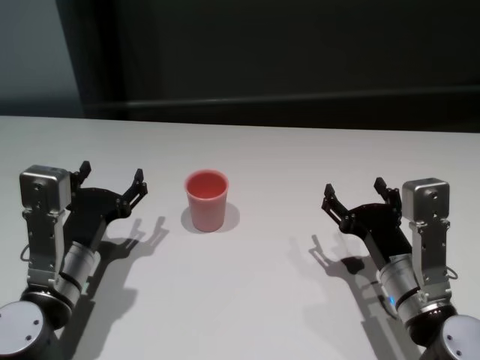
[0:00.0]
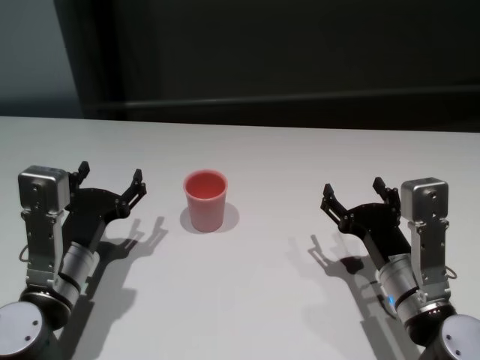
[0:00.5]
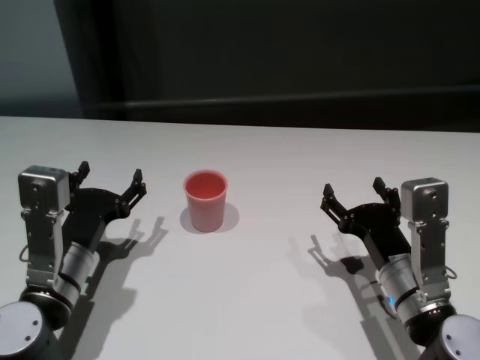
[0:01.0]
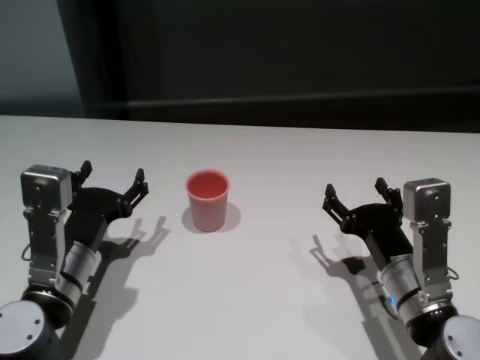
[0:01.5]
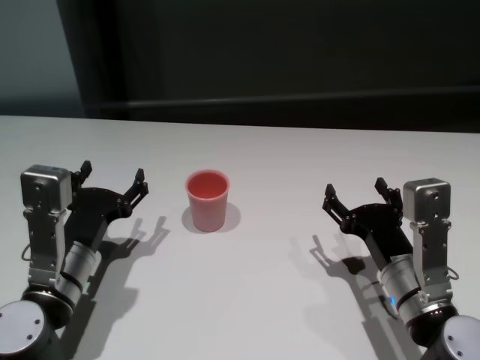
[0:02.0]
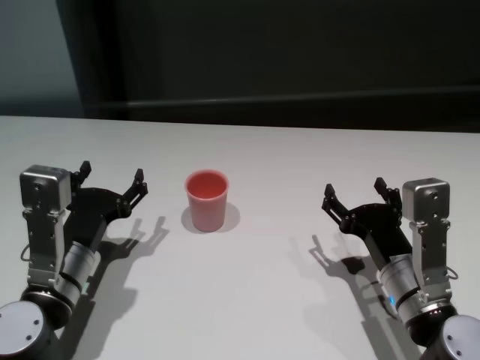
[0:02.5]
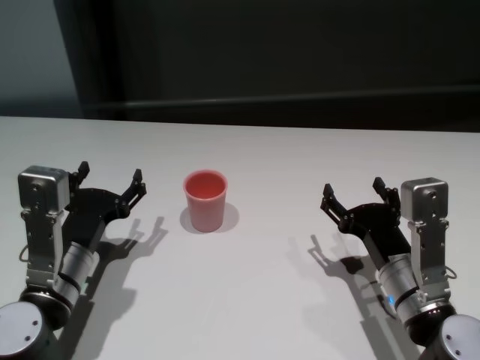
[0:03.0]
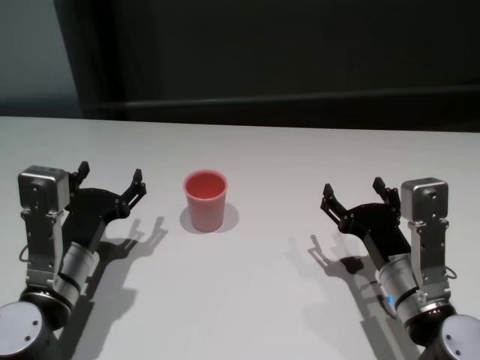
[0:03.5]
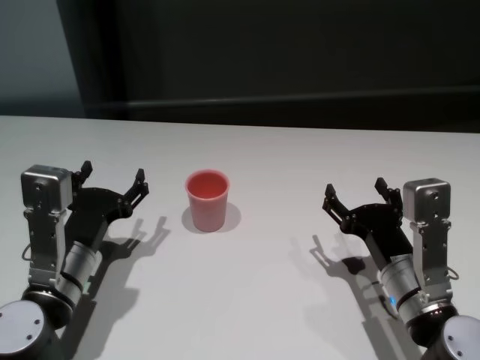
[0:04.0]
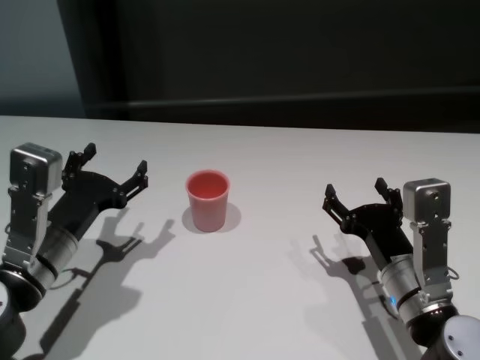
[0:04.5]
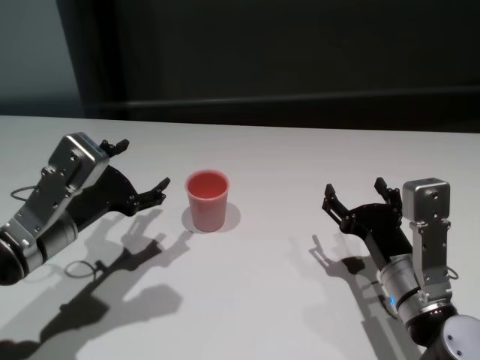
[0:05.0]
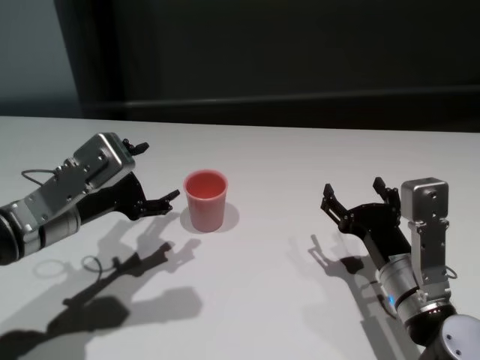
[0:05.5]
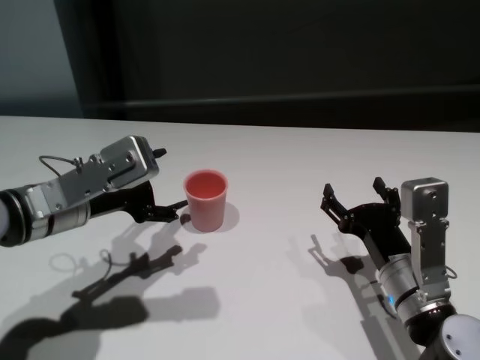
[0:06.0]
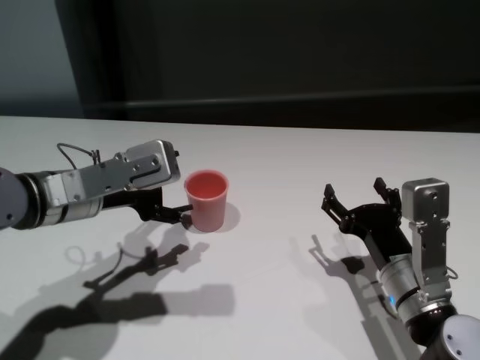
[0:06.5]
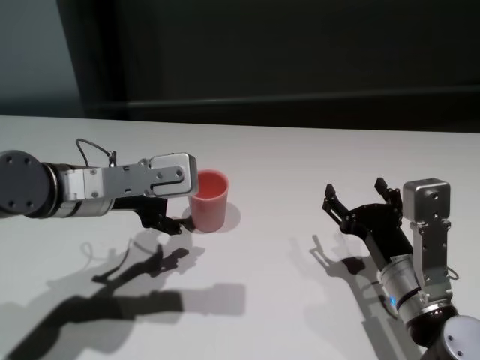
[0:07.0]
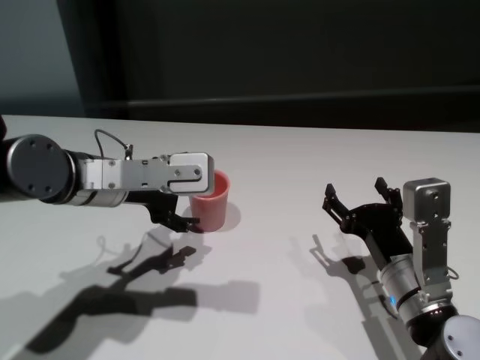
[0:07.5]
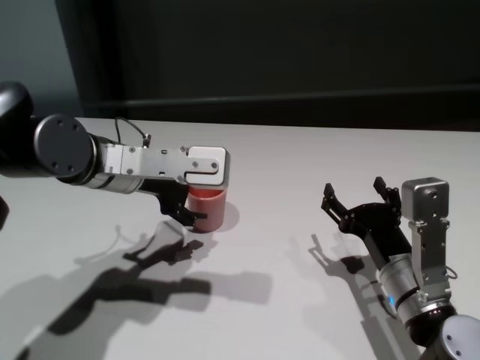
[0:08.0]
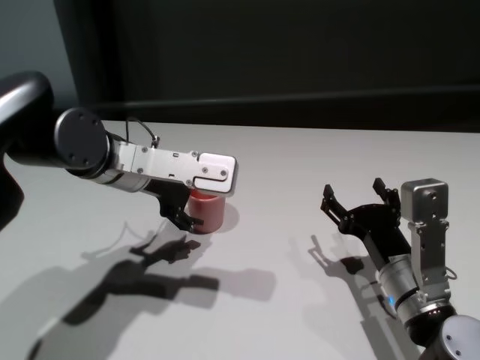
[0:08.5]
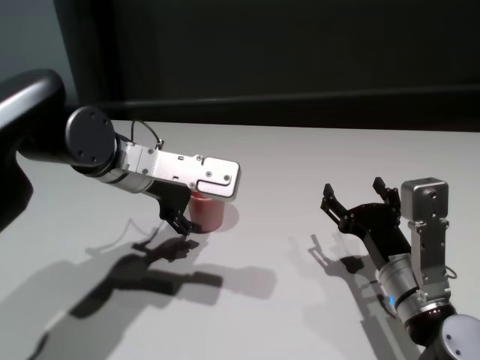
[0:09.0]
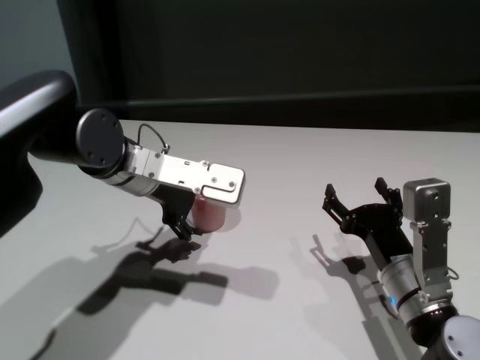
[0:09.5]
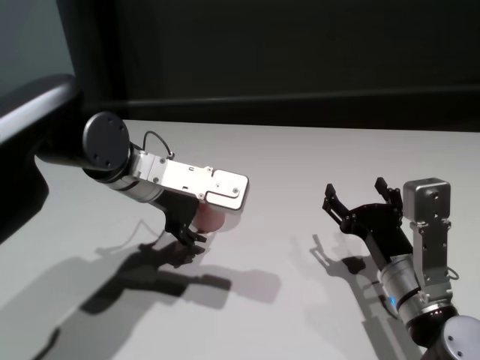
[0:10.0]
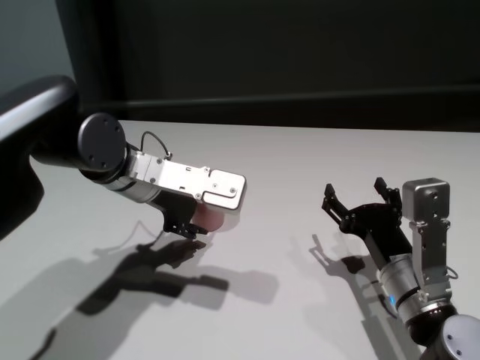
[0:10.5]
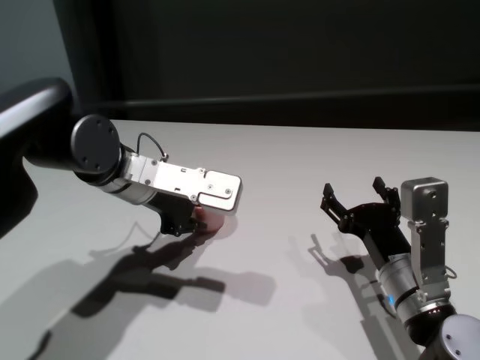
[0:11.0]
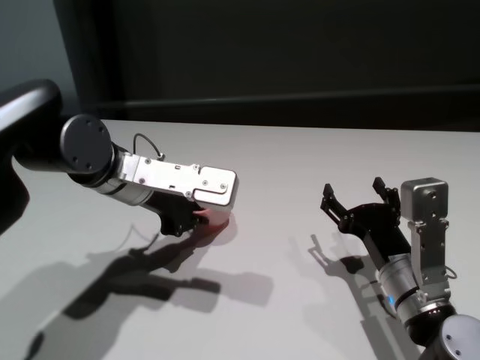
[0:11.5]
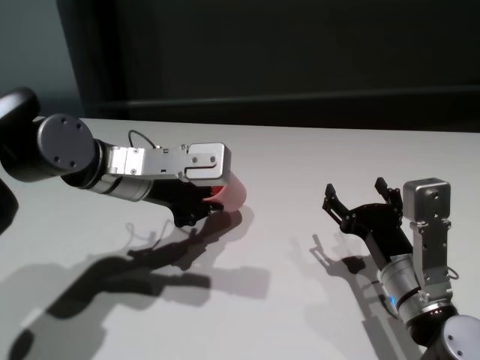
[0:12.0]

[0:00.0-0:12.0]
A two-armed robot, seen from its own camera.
Task of the whole recording: On the white table pick up the cup with one hand and transfer it to the other hand before turning it over.
Step, 0:00.0 to 0:11.0: Grasp the cup with left gripper.

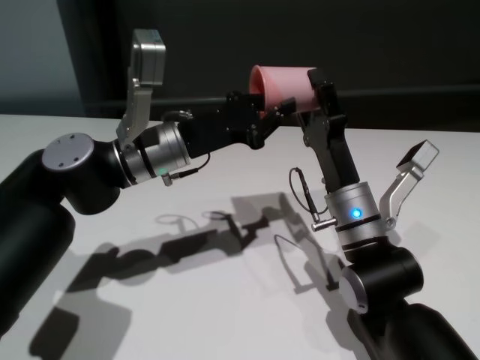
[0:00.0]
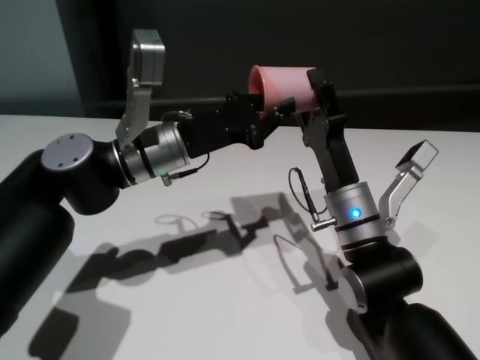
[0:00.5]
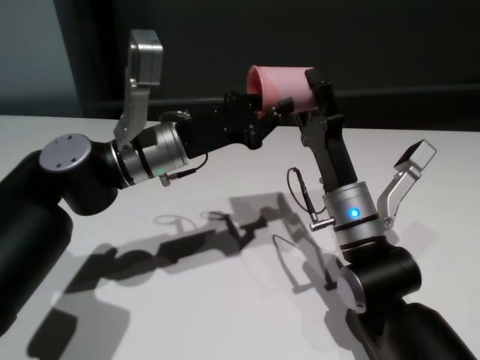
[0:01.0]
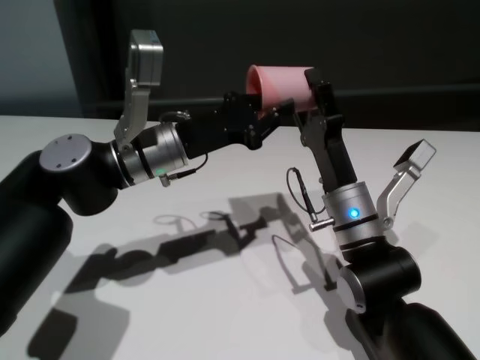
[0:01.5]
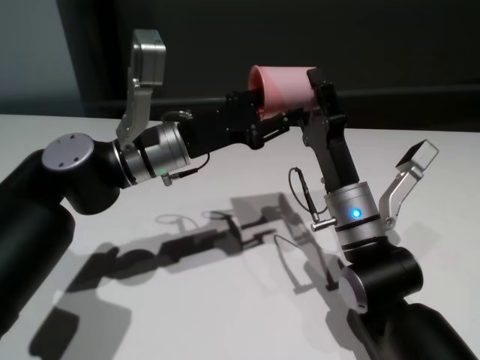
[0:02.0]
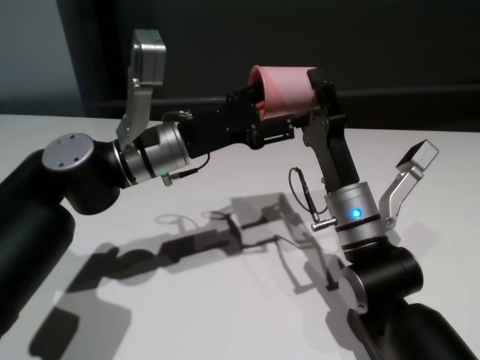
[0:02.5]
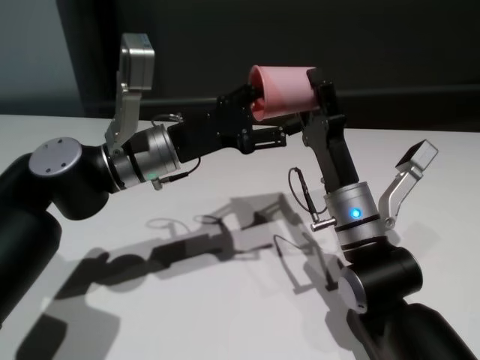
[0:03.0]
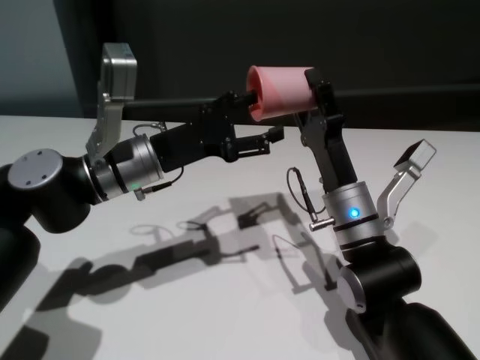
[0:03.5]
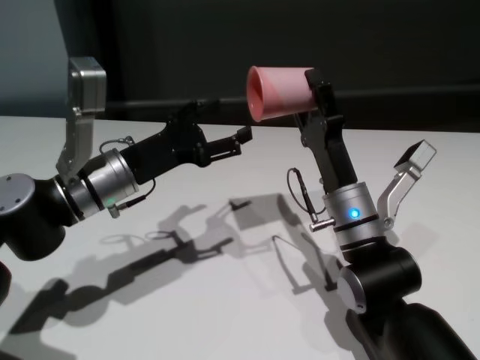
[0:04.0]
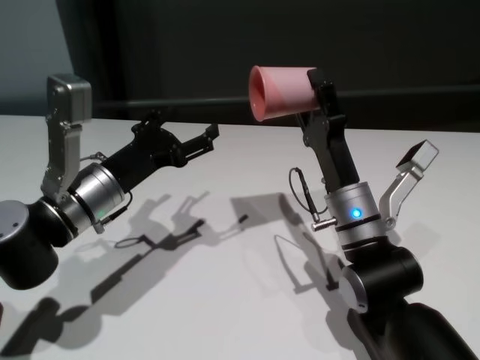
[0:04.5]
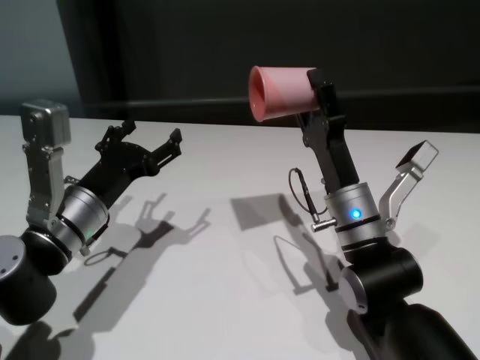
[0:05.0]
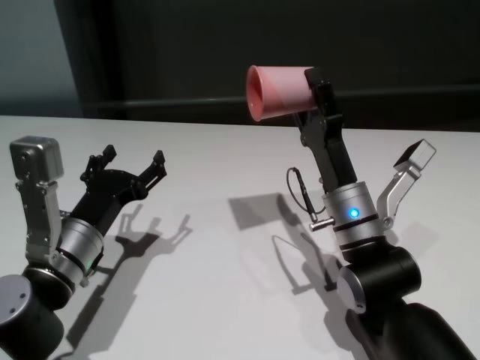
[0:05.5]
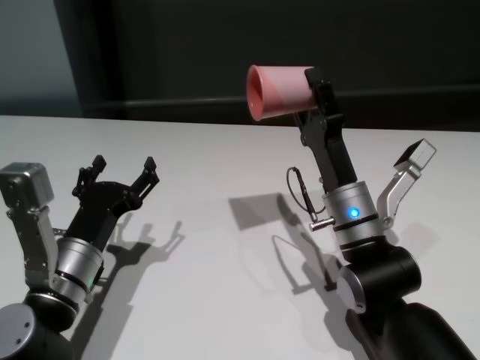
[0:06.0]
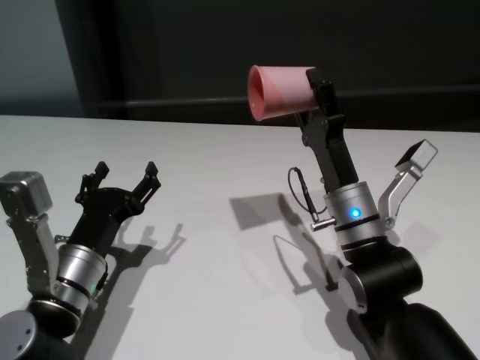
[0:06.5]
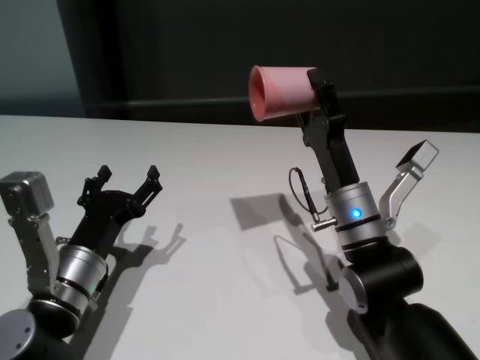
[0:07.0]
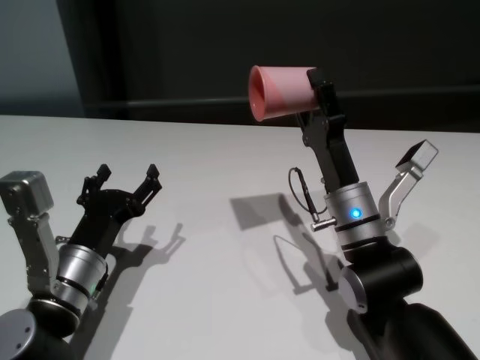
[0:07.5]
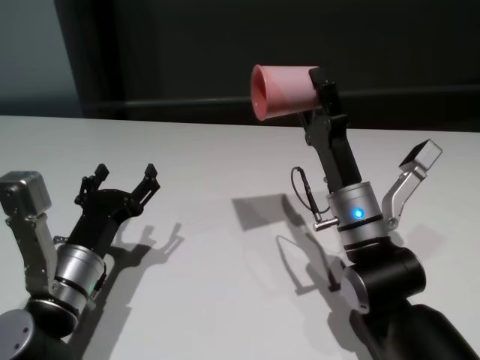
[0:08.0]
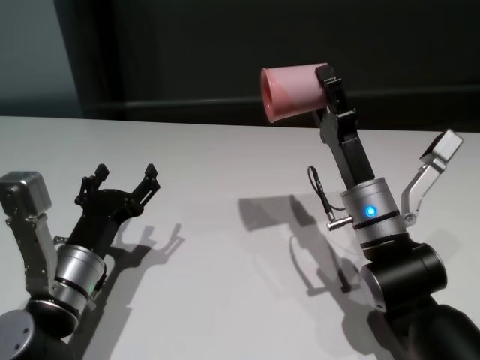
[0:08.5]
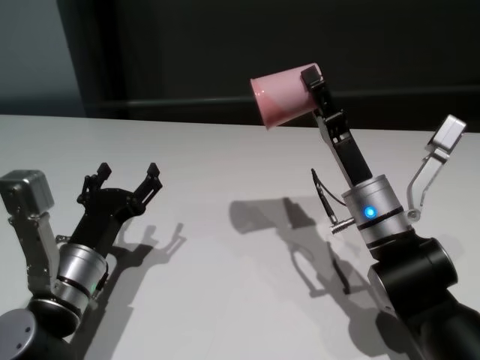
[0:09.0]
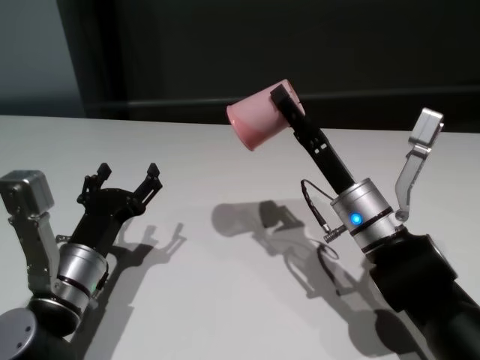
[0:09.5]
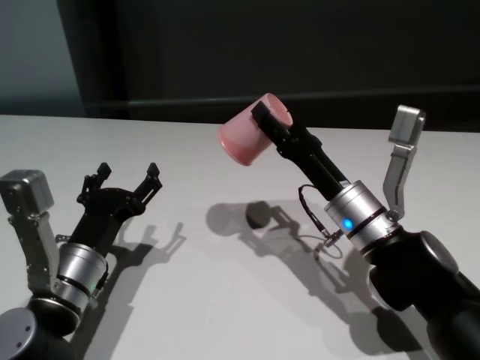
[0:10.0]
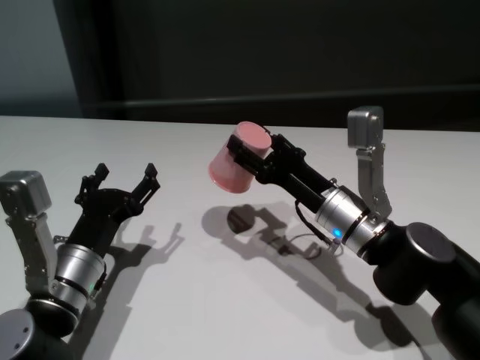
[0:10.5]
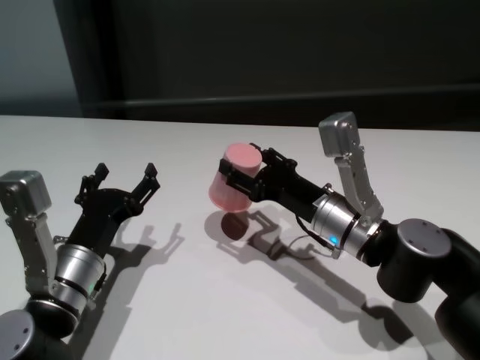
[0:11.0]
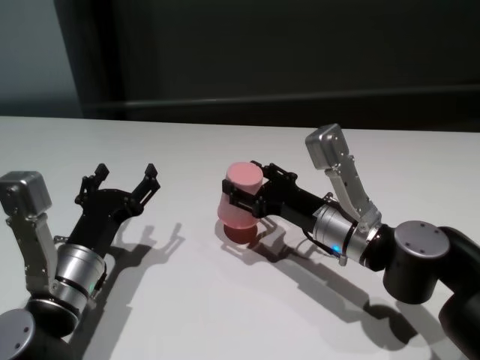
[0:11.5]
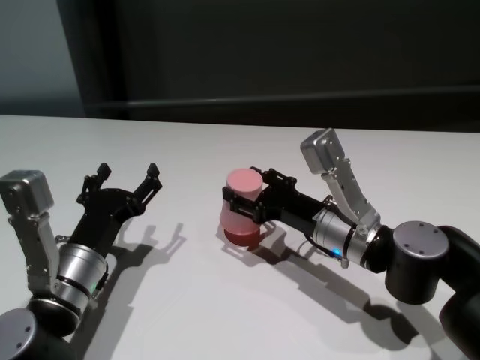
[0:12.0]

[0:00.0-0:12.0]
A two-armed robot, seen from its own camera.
Task of the whole recording: On the white table pick up the cup with one hand and transfer it to the other hand before turning it over.
Step, 0:00.0 to 0:04.0: Pass the cup to the right gripper.

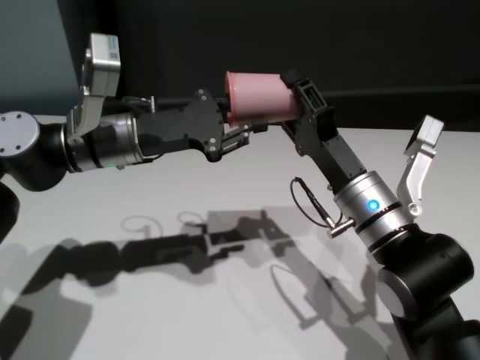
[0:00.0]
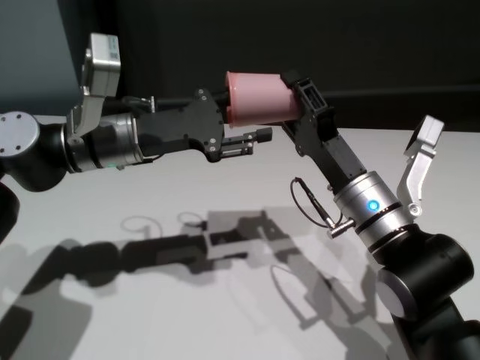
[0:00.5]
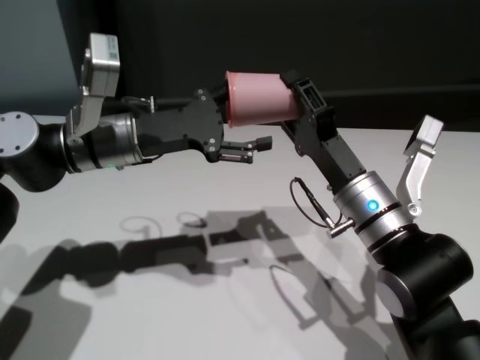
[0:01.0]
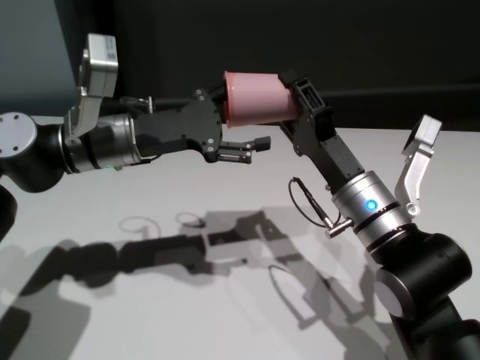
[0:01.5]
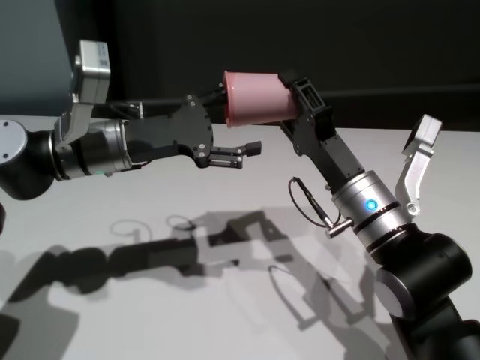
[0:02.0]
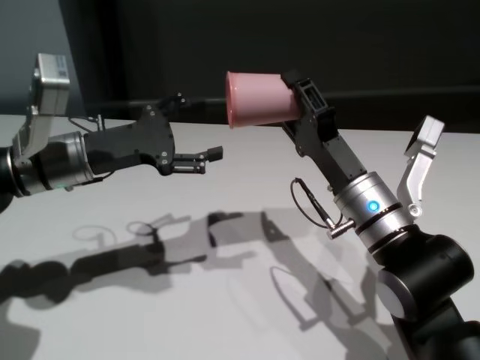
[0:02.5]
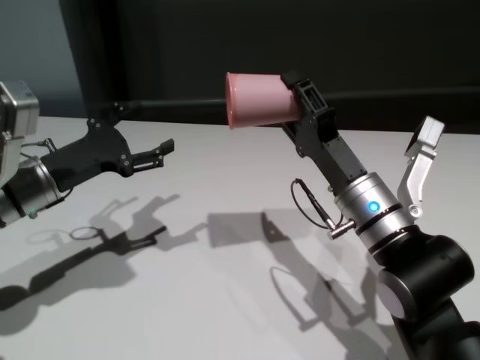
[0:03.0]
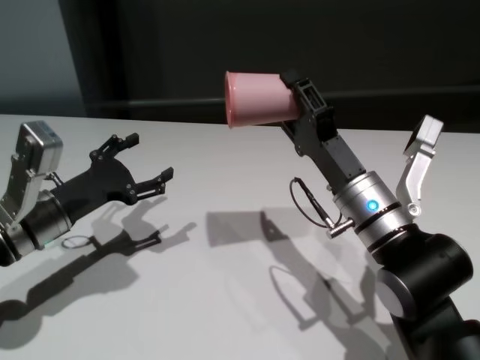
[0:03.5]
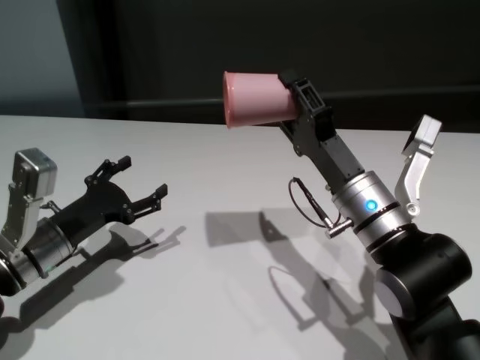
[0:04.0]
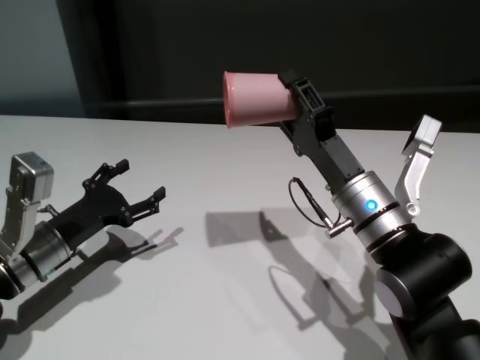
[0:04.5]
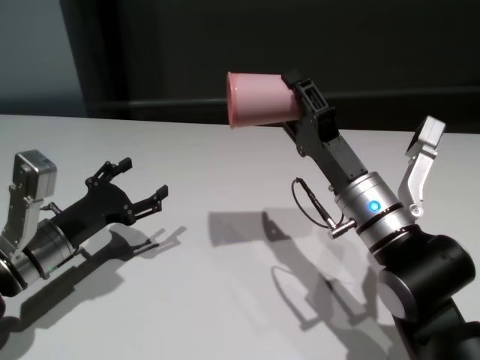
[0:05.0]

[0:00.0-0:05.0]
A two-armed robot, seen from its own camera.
Task of the whole recording: On the white table pick up the cup with one hand and transfer it to the other hand before turning it over.
Step, 0:00.0 to 0:02.0: Pass the cup to the right gripper.
